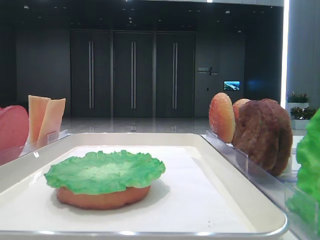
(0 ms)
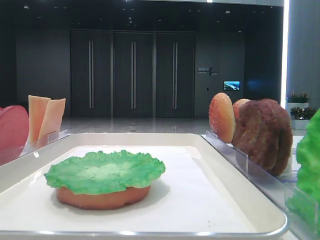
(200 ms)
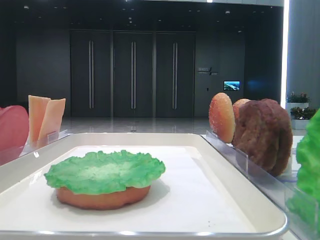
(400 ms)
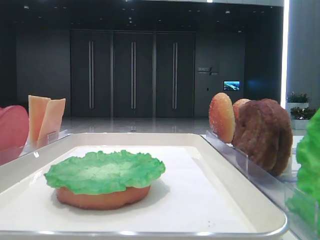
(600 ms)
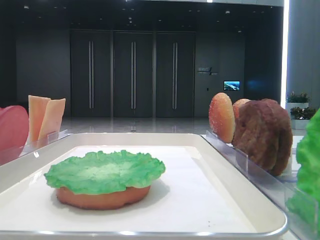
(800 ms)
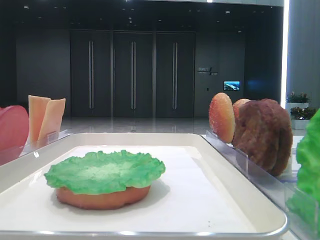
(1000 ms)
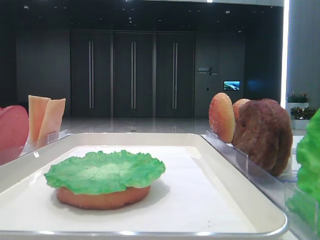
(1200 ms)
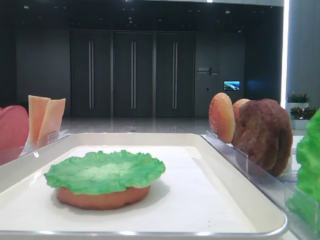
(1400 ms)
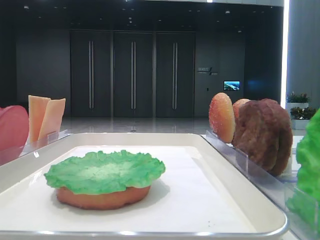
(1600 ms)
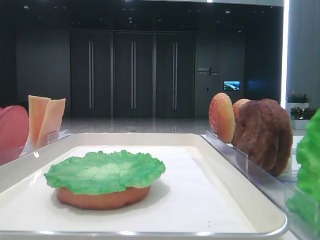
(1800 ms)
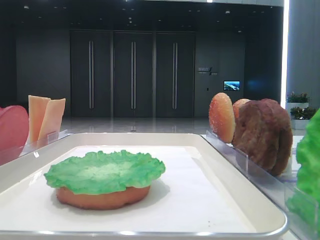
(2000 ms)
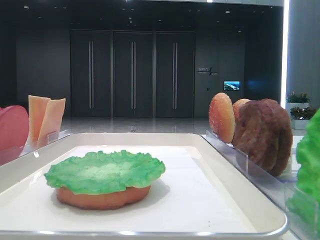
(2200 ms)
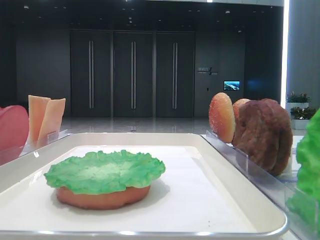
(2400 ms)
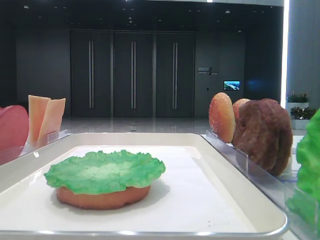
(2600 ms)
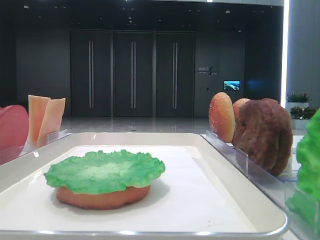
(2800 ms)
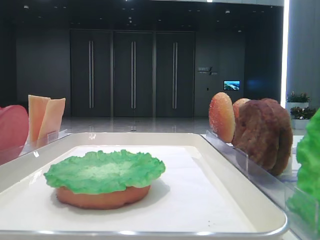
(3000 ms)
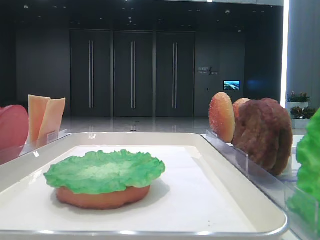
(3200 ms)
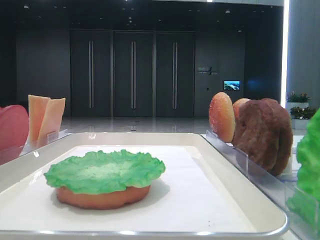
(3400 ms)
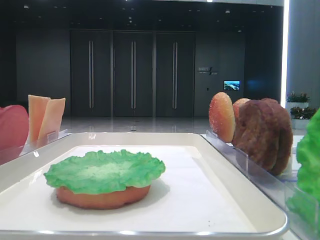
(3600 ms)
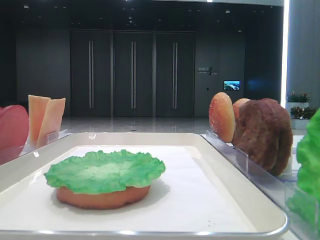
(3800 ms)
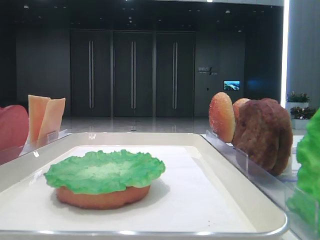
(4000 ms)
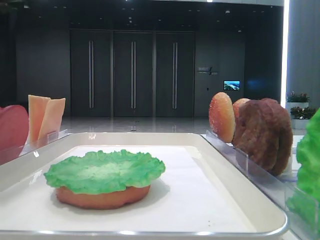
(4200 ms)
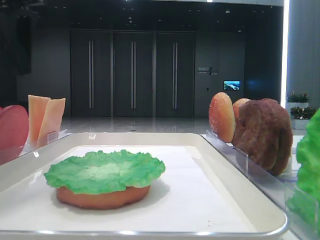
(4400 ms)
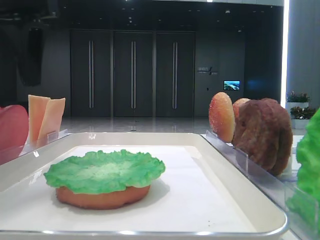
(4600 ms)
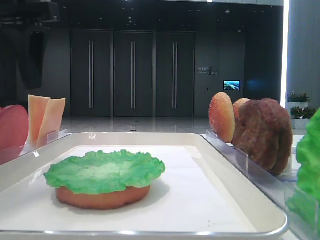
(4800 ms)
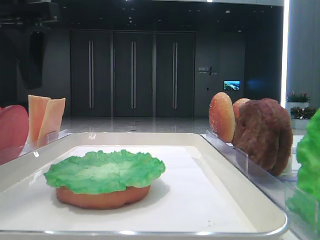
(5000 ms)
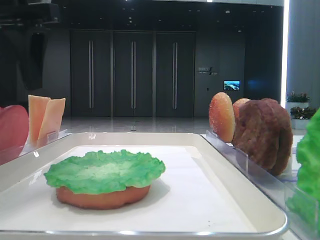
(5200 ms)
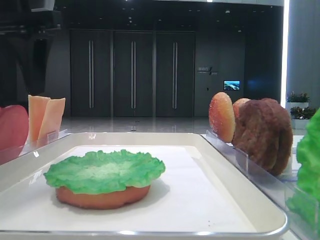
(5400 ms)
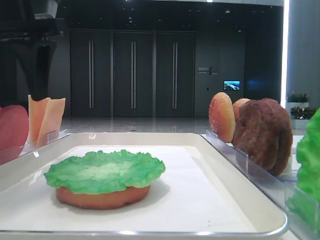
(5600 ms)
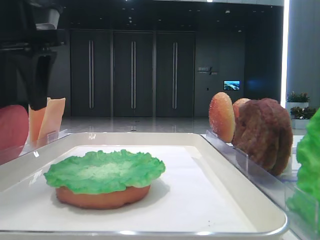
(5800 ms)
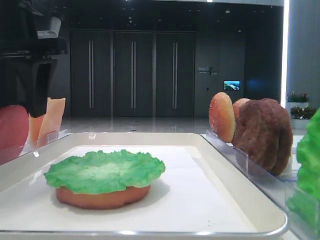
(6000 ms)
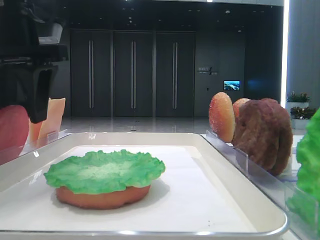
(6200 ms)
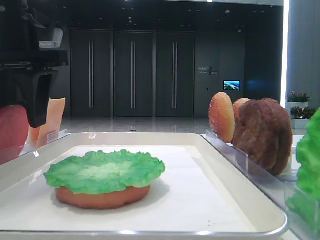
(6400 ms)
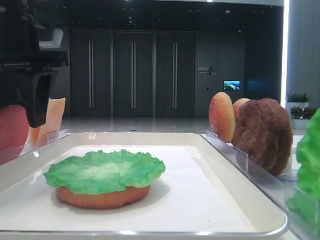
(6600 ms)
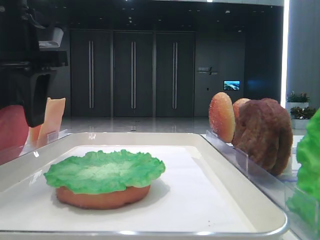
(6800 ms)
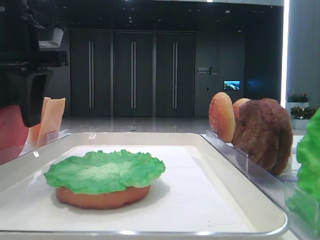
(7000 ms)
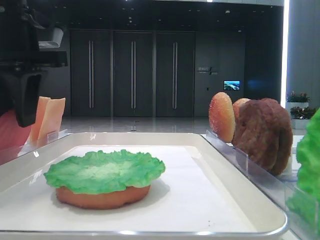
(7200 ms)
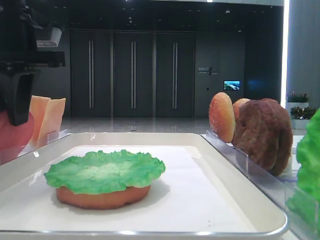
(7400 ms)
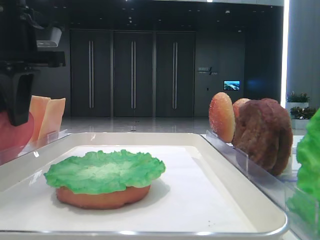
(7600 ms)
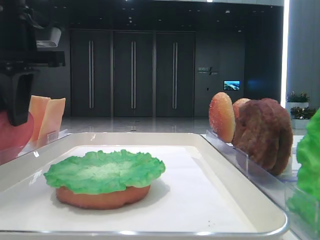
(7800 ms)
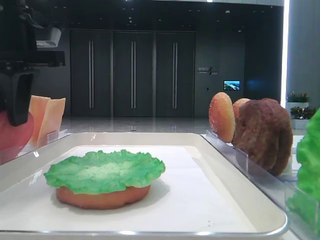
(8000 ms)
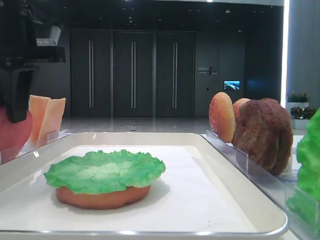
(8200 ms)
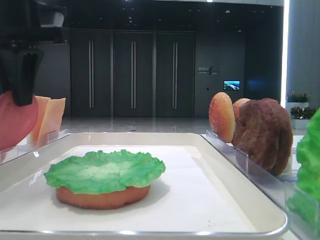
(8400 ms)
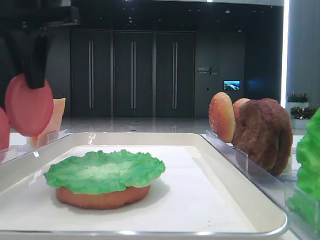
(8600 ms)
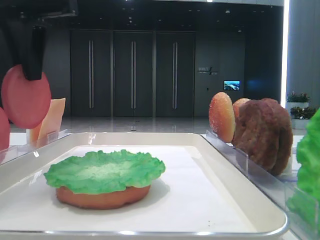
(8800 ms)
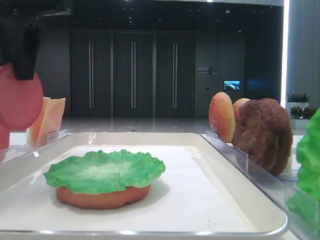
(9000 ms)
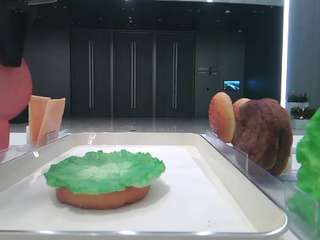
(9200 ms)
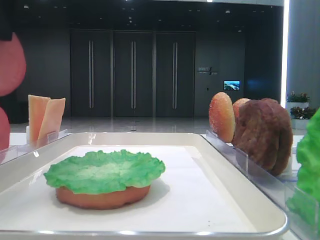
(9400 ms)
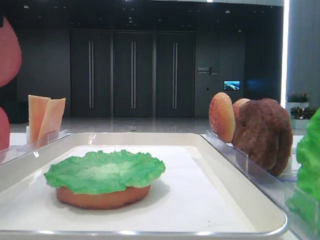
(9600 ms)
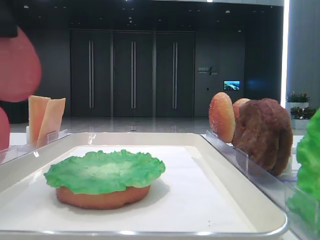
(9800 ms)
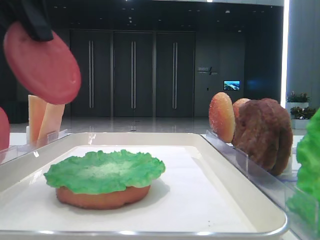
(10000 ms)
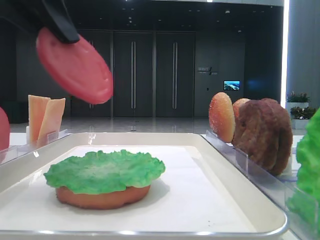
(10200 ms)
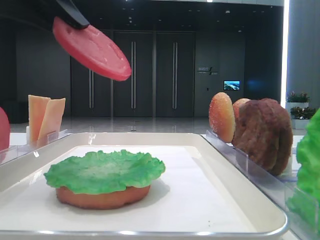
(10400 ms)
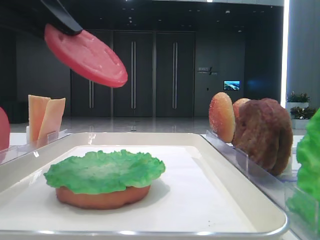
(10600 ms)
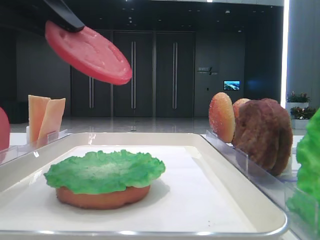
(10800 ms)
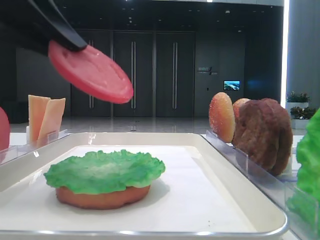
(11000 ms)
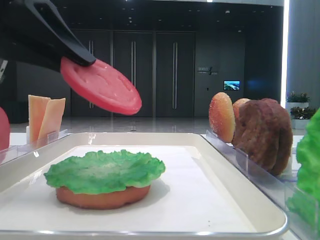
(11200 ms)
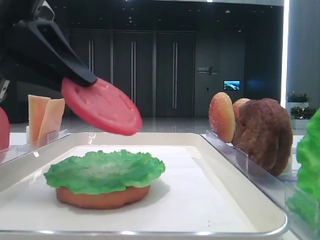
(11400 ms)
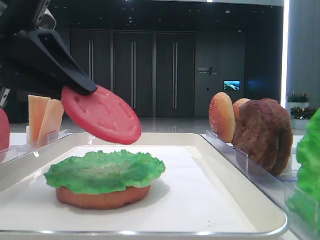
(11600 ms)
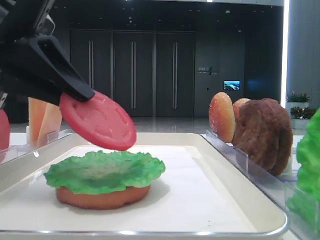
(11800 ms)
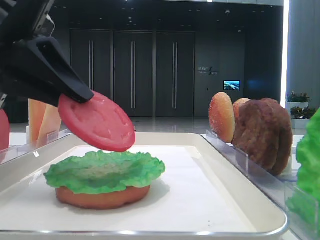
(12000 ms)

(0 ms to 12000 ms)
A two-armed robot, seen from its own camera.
Step, 0 ms - 8000 ms: Pick up the tomato slice with the left hand.
3000 ms - 4400 ms: The left gripper goes about 10 cm to the right.
4400 ms - 6000 ms: The left gripper moves approximately 5 cm.
6000 ms - 7600 ms: The left gripper closes up.
7600 ms - 9000 ms: The left gripper shifts approximately 5 cm upward.
9000 ms - 10400 ms: The left gripper is displaced backward by about 5 cm.
10400 ms - 12000 ms: The left gripper is displaced downward by roughly 5 cm.

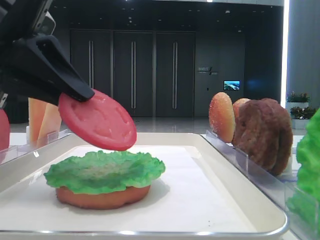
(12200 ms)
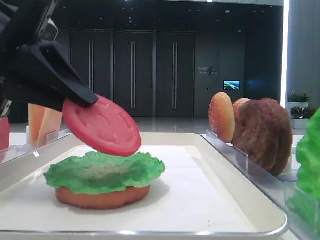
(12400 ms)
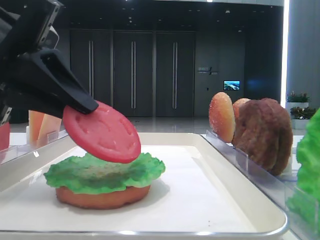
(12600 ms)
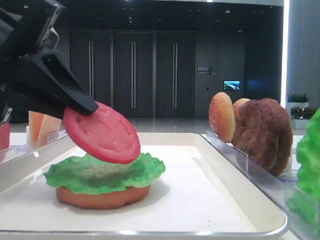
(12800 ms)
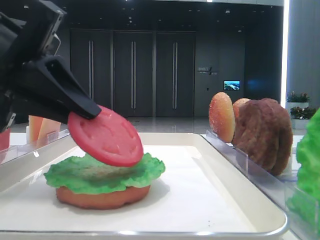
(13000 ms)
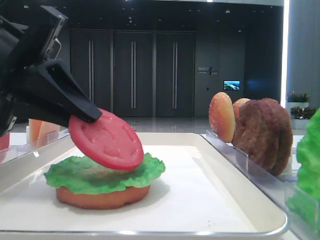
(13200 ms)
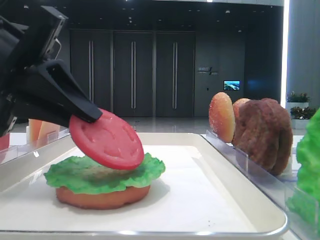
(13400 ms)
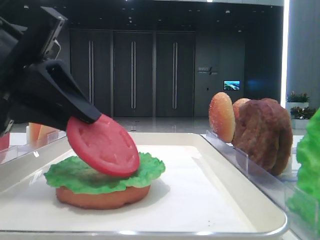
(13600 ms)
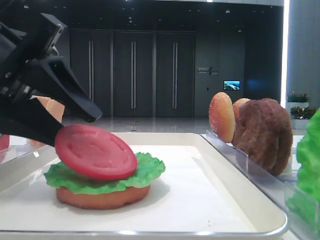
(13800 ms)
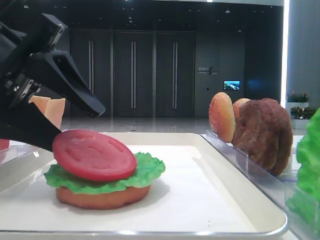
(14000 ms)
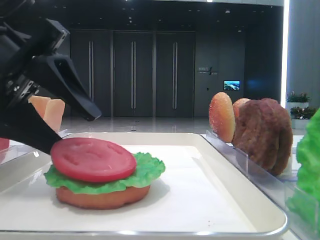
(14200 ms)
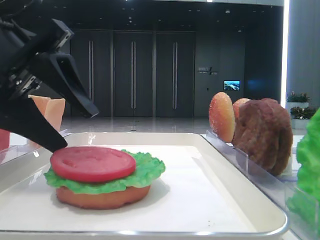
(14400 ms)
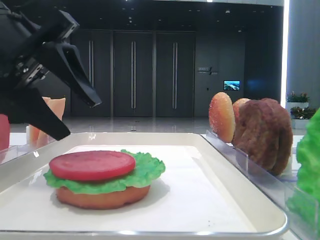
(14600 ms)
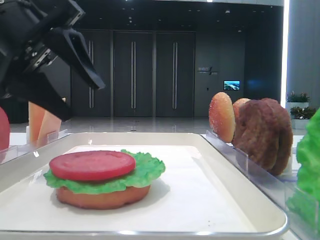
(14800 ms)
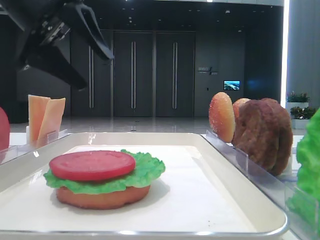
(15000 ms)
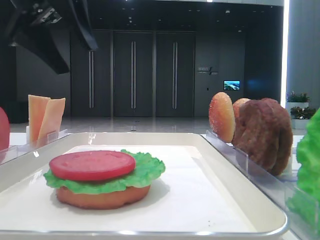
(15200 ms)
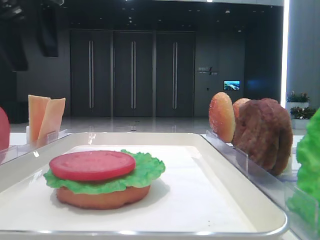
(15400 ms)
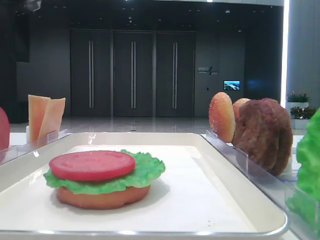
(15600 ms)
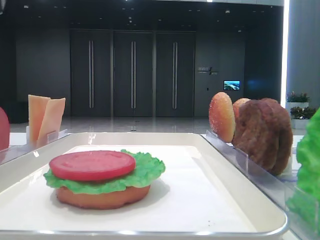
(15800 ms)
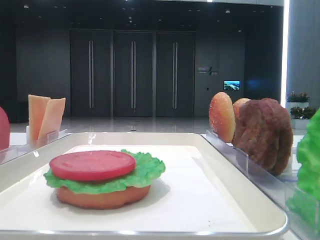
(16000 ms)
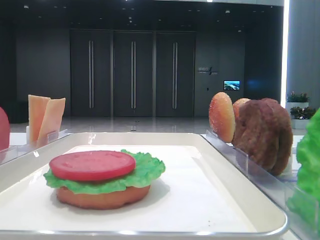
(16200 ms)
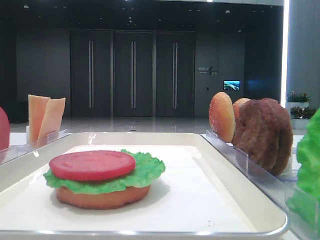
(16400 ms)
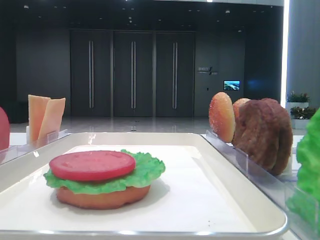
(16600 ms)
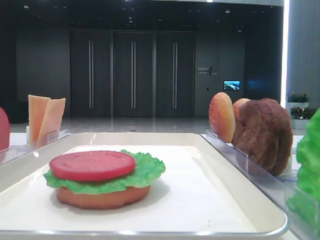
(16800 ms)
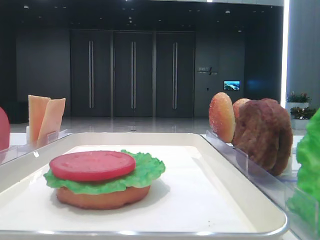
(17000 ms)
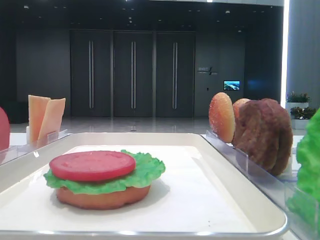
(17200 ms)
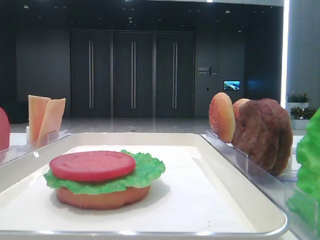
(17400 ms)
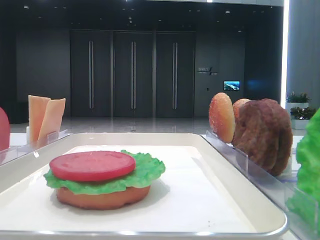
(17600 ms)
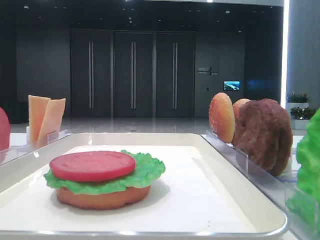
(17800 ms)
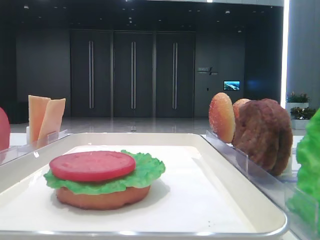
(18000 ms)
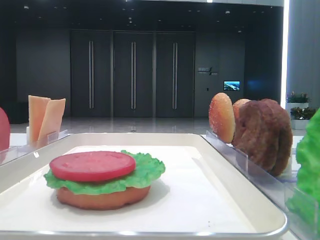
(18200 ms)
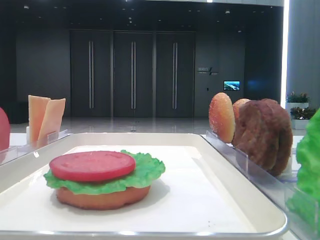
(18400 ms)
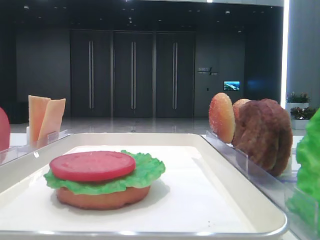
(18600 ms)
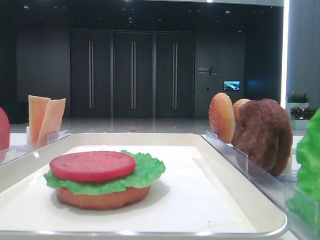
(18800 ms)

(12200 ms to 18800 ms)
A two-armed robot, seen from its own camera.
Step, 12200 ms - 14200 ms: Place the tomato slice on the lettuce leaf with the left hand.
12200 ms - 13800 ms: The left gripper opens its fingers.
13800 ms - 15400 ms: The left gripper is displaced upward and forward by about 15 cm.
15400 ms - 17200 ms: The left gripper heads backward and to the left, covering about 20 cm.

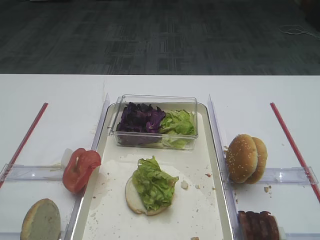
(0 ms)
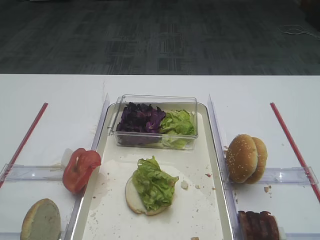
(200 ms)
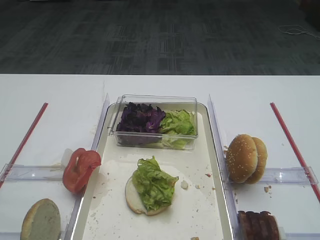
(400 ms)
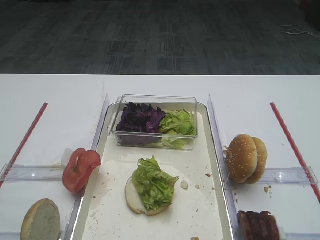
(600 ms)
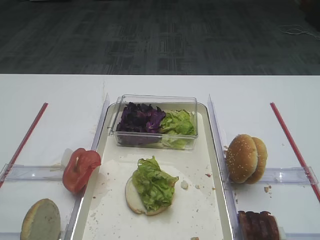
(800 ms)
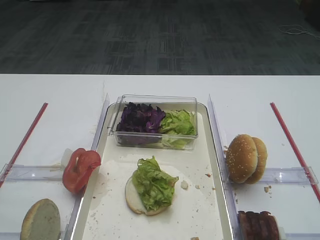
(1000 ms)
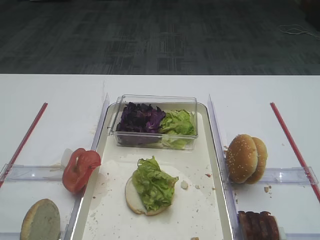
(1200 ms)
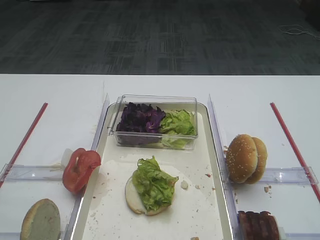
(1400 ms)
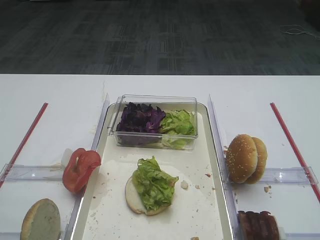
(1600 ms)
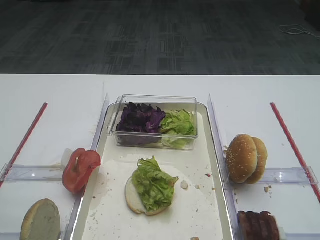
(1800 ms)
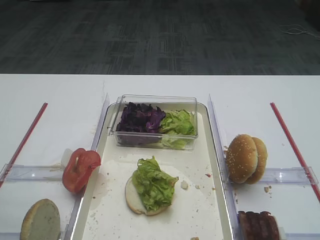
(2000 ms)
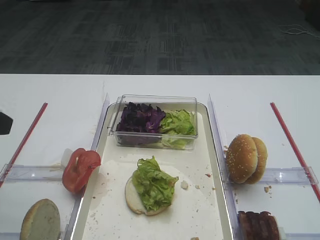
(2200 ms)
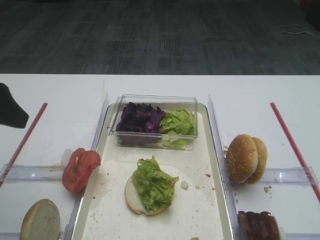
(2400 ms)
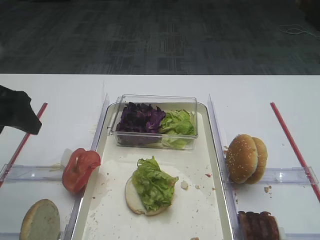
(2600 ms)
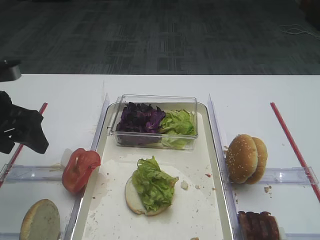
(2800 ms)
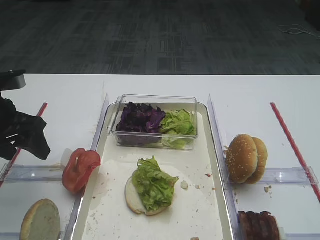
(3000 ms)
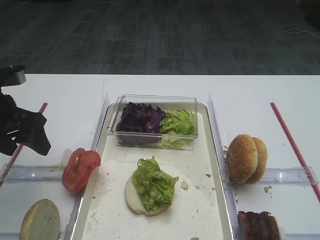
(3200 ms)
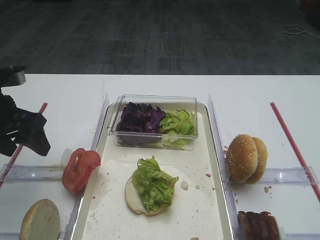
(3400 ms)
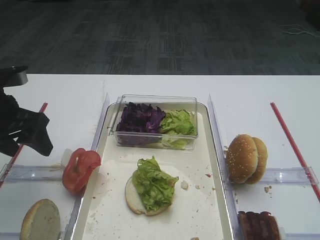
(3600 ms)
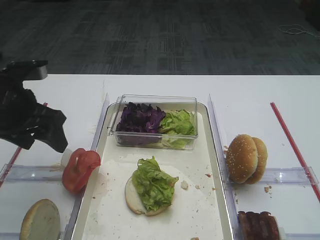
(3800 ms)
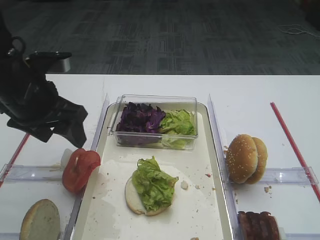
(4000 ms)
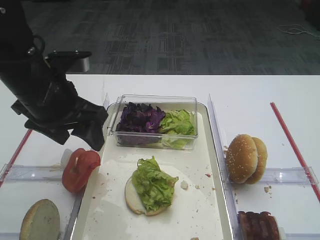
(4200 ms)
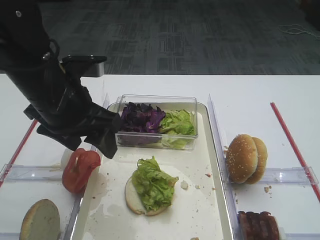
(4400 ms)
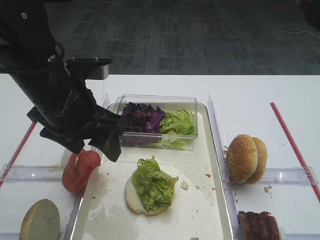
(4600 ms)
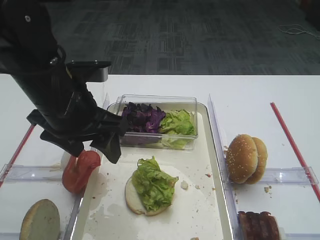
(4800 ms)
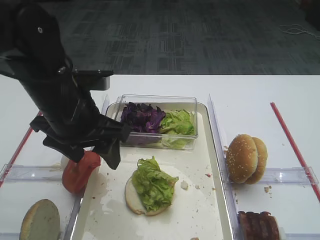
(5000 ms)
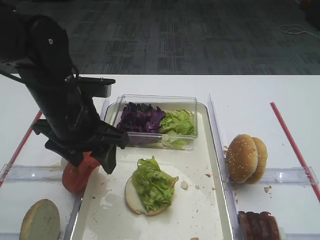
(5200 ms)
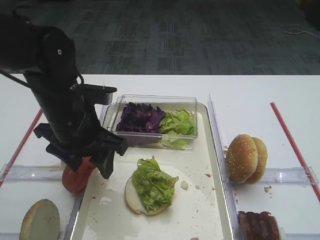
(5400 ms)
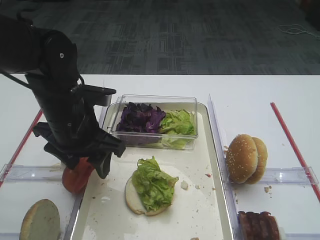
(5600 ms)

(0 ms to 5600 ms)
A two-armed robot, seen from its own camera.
1400 ms - 2800 ms: The left gripper travels forward by about 30 cm.
2800 ms - 4200 ms: The left gripper travels to the right by some 10 cm.
4200 ms - 5600 ms: The left gripper goes roughly 5 cm downward.
